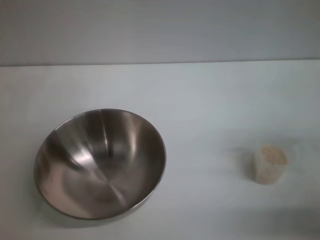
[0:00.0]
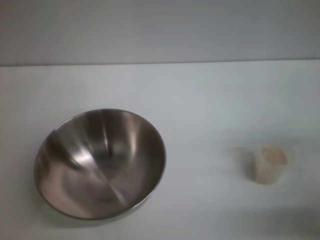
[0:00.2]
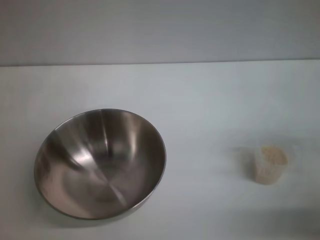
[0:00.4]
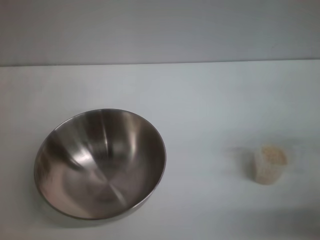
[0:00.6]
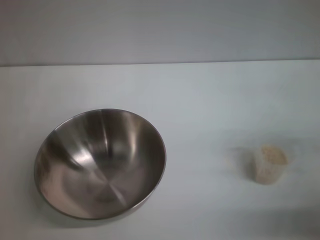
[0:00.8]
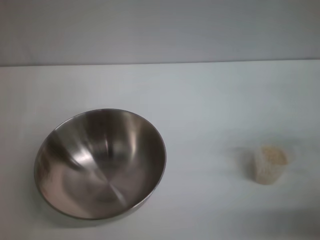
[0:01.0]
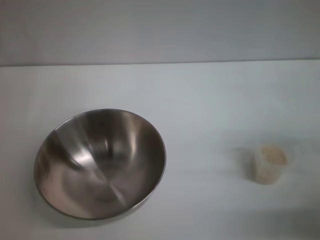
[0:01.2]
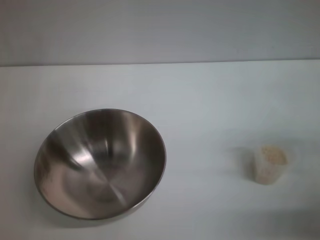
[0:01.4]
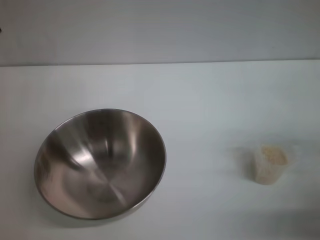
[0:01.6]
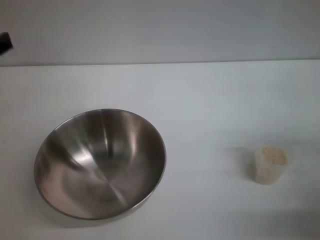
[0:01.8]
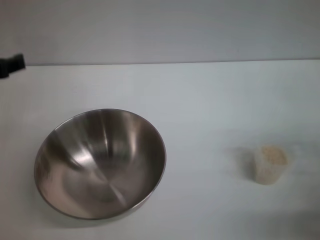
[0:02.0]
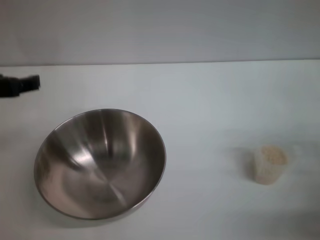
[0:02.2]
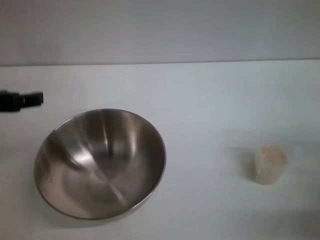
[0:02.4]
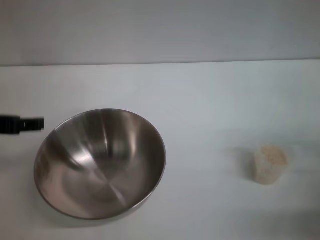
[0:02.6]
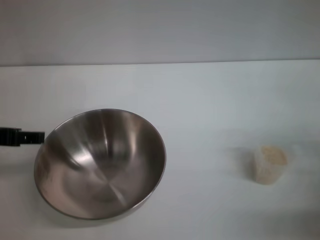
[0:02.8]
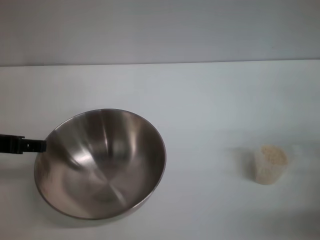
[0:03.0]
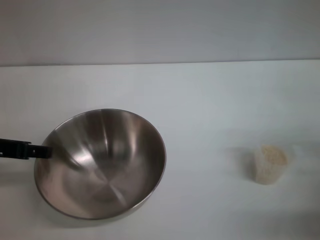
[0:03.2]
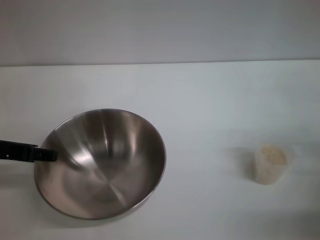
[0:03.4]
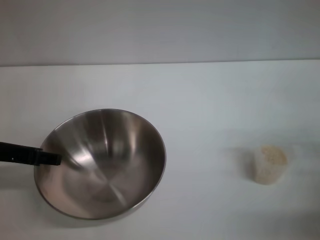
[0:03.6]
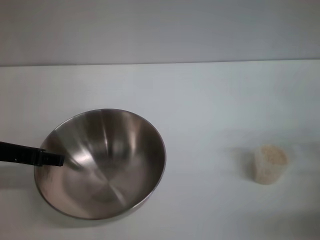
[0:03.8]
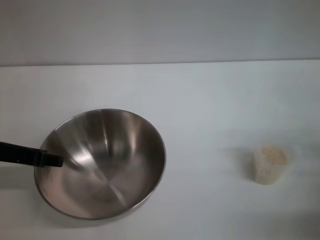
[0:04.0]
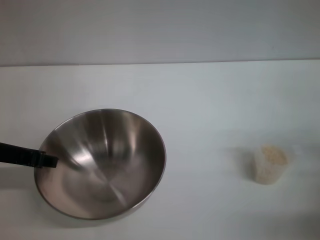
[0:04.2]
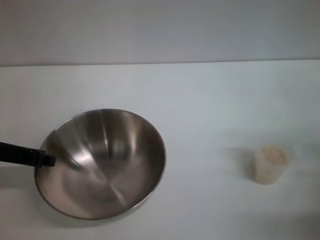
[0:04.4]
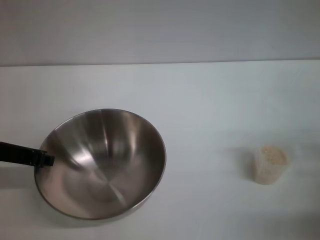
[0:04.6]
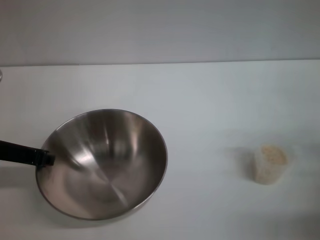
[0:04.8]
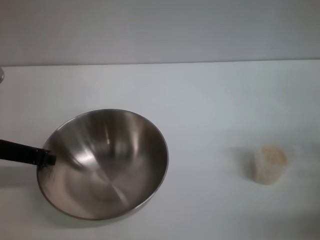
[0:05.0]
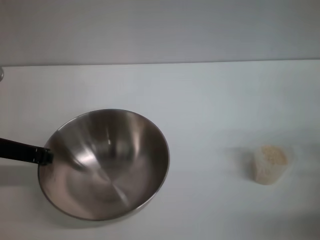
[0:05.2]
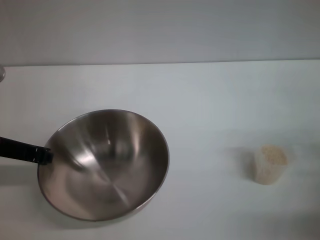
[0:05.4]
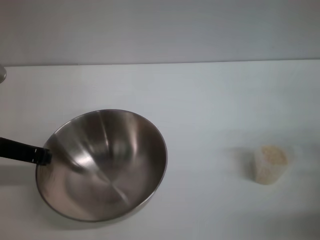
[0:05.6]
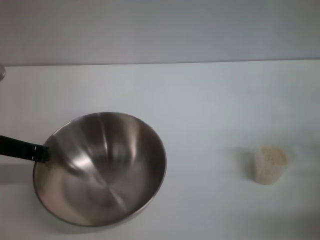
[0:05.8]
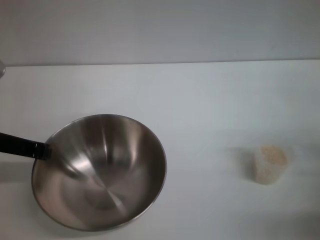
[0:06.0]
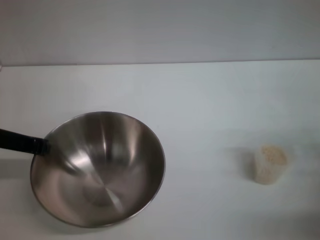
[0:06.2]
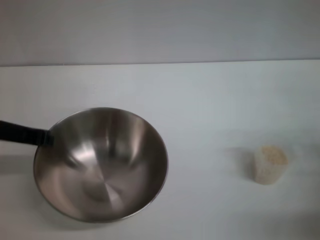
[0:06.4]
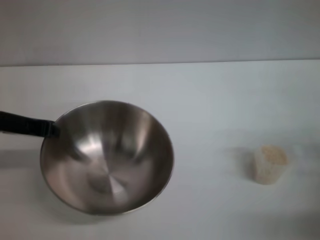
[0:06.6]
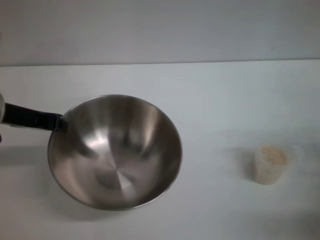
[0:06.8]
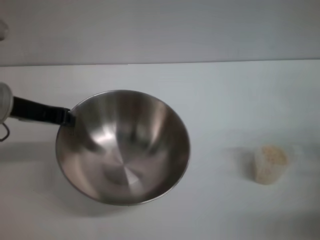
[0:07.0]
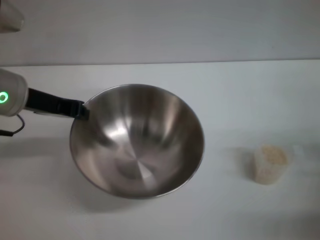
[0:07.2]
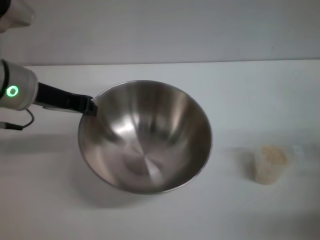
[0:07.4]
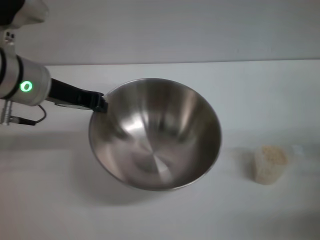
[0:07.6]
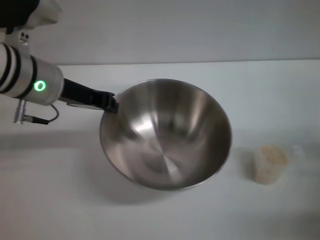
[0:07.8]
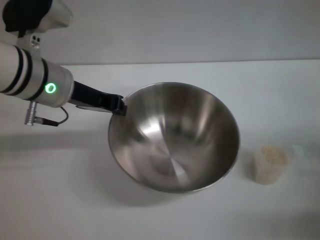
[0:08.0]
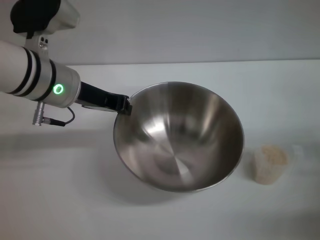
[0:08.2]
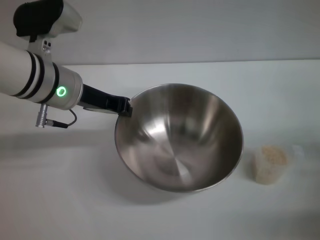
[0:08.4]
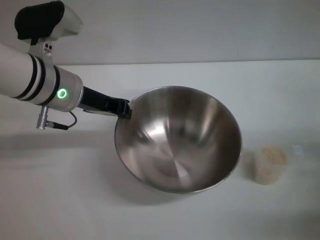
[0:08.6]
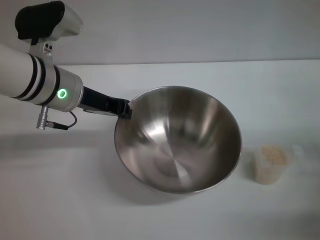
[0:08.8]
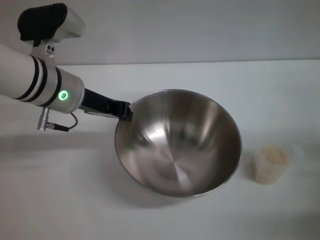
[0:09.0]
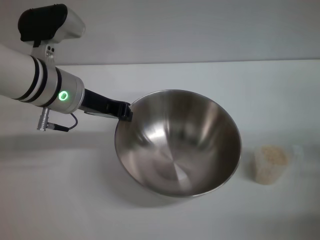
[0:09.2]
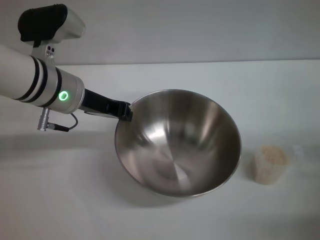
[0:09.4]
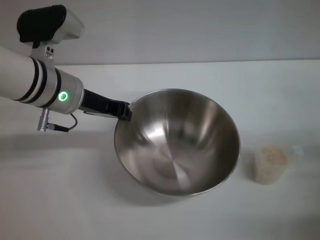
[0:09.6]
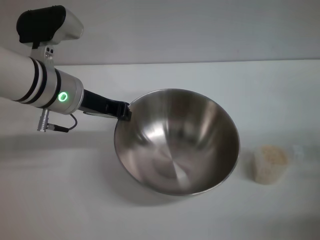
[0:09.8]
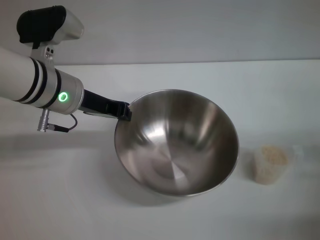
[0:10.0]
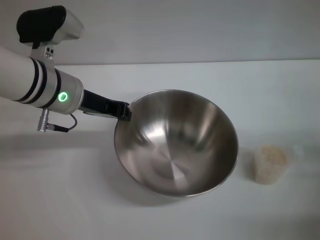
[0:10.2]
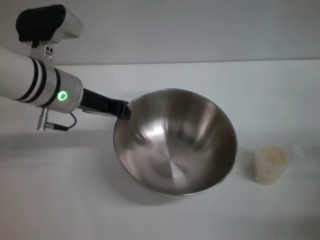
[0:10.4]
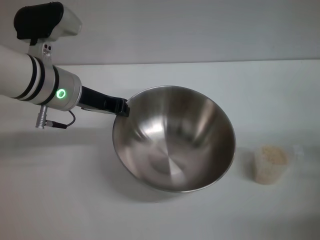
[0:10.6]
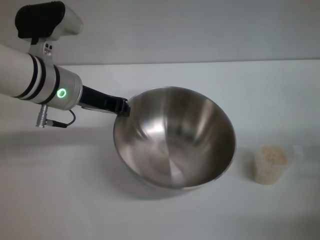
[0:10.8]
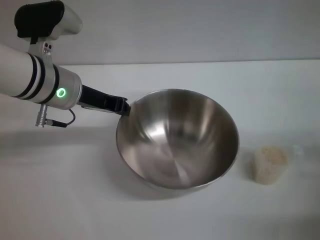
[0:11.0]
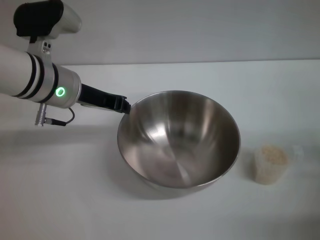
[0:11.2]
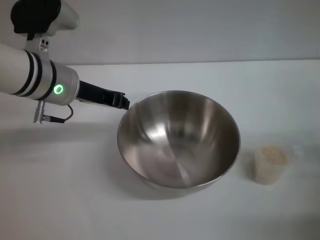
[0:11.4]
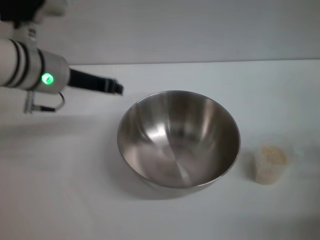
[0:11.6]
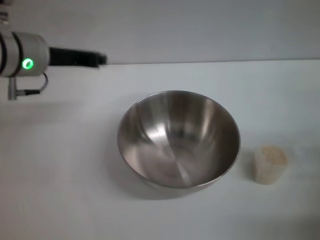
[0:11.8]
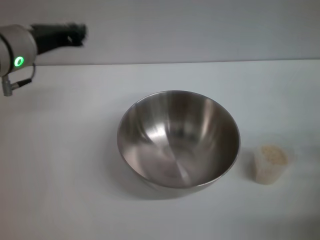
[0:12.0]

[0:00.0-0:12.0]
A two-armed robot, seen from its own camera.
Task of the whole recording: Place the bowl in the middle of the table with one hand and pour the rice from the grain cup into it with the other hand.
Step, 0:00.0 to 0:08.0: Pick up the bowl with the left gripper.
Step, 0:08.2 to 0:11.4: Place the bowl in the center of view with the left gripper.
0:03.0 to 0:04.4: The grippers make only small movements.
0:04.4 to 0:06.0: The left gripper closes its fingers.
0:06.0 to 0:07.6: The left gripper heads forward and to the right, covering some 10 cm.
0:09.0 to 0:10.4: Neither gripper changes place.
0:10.4 to 0:12.0: The left gripper moves roughly 5 cm.

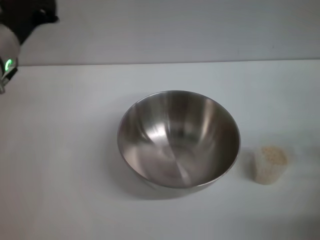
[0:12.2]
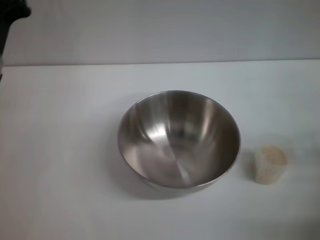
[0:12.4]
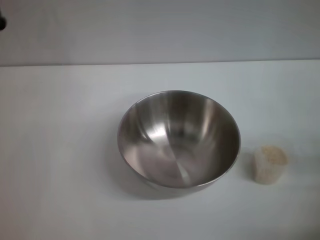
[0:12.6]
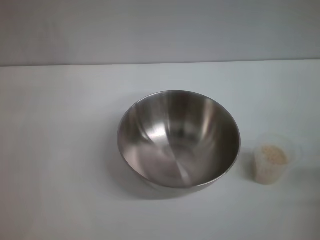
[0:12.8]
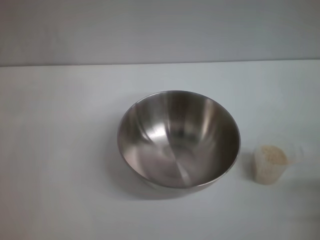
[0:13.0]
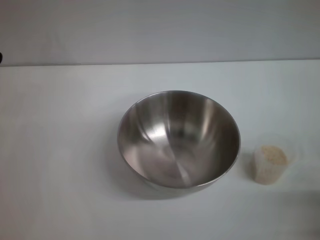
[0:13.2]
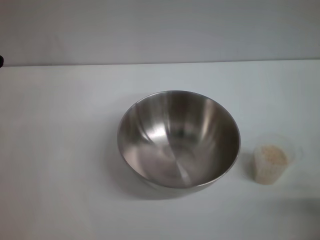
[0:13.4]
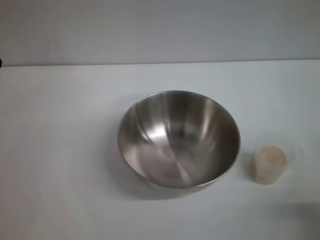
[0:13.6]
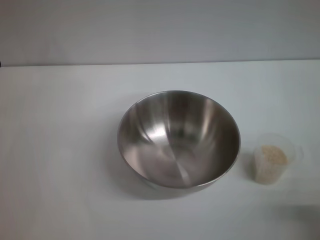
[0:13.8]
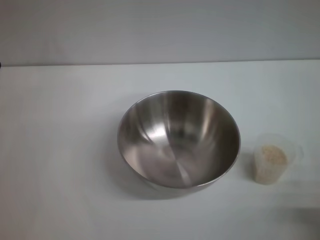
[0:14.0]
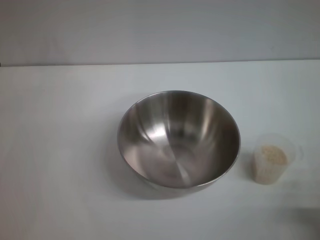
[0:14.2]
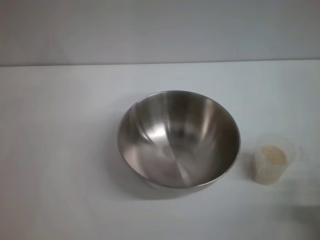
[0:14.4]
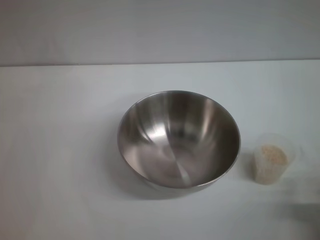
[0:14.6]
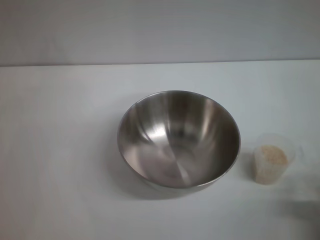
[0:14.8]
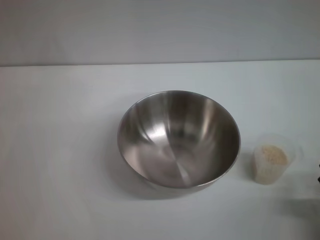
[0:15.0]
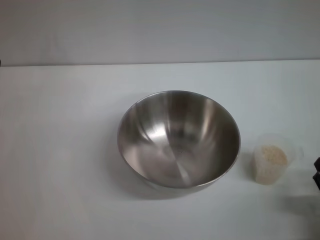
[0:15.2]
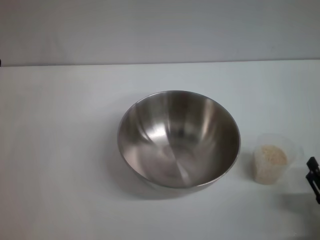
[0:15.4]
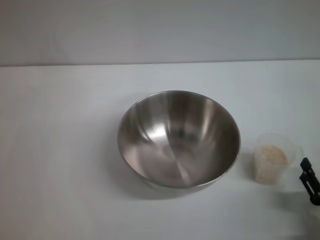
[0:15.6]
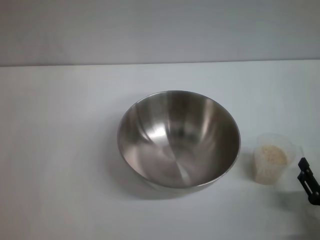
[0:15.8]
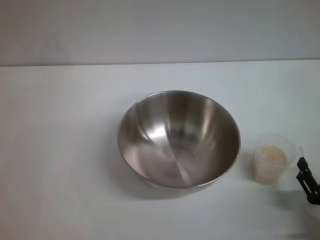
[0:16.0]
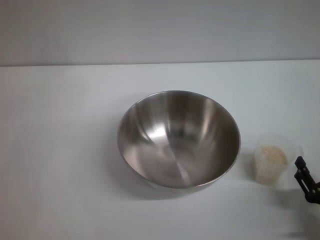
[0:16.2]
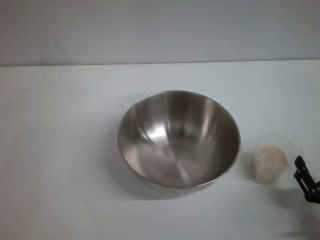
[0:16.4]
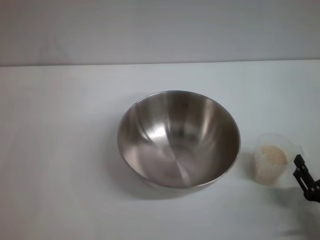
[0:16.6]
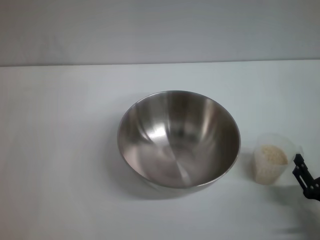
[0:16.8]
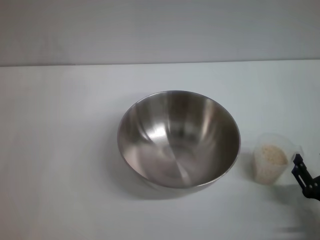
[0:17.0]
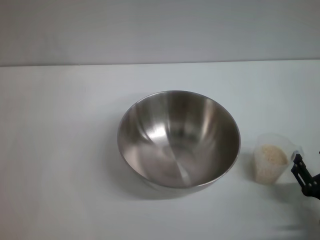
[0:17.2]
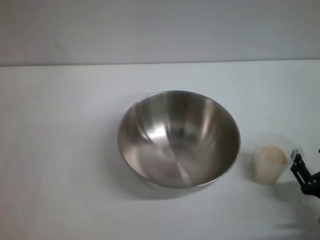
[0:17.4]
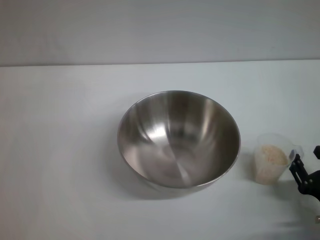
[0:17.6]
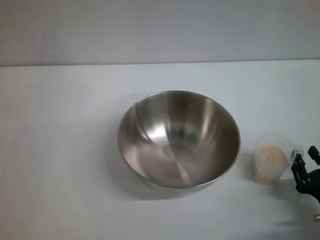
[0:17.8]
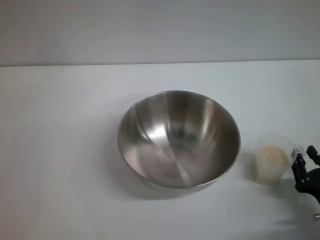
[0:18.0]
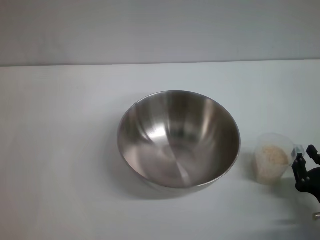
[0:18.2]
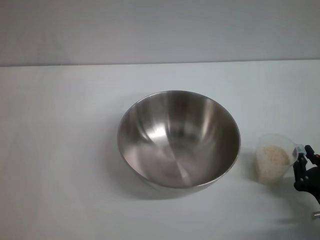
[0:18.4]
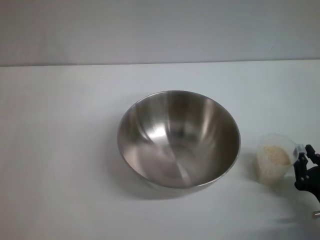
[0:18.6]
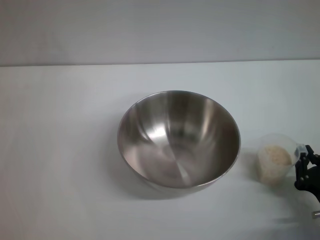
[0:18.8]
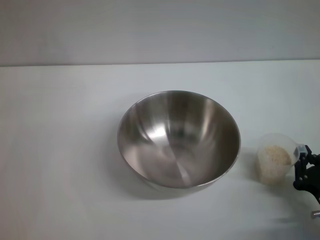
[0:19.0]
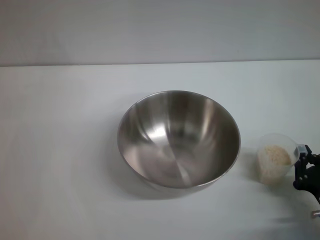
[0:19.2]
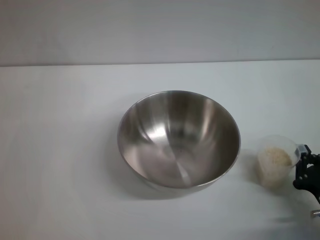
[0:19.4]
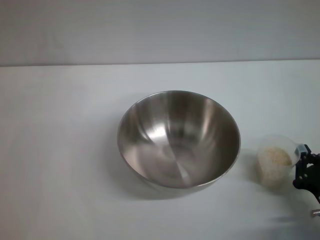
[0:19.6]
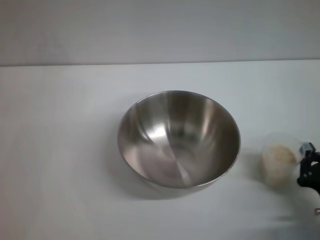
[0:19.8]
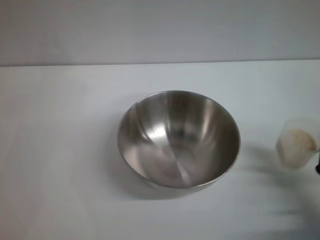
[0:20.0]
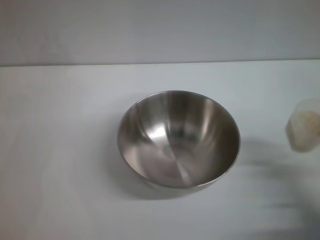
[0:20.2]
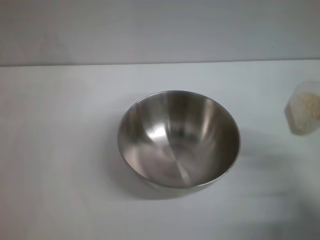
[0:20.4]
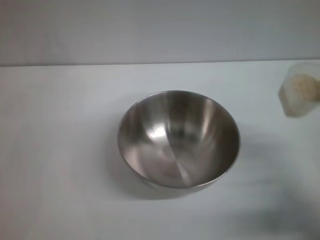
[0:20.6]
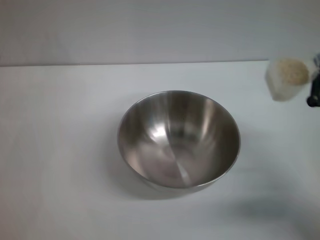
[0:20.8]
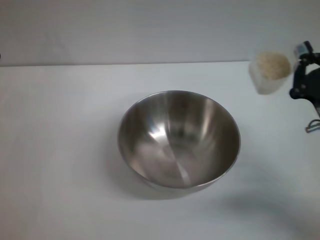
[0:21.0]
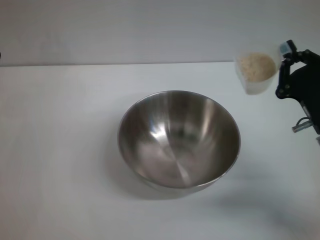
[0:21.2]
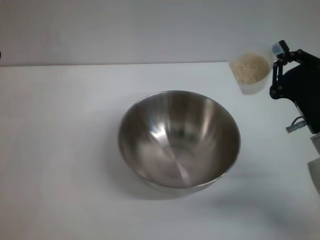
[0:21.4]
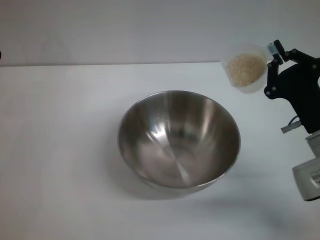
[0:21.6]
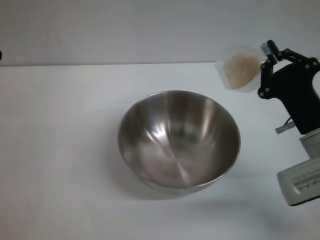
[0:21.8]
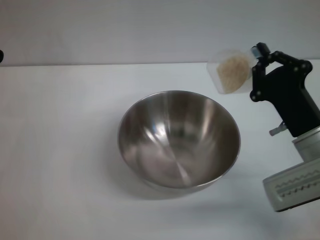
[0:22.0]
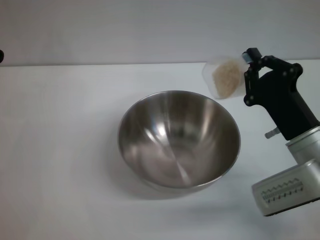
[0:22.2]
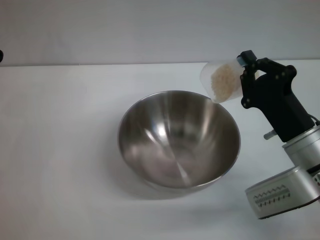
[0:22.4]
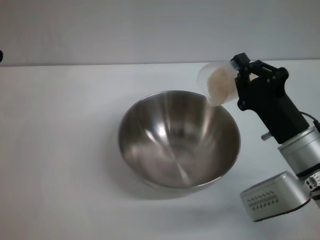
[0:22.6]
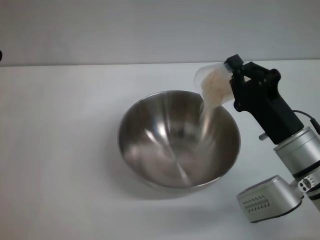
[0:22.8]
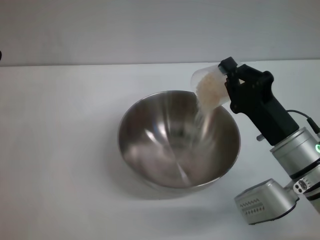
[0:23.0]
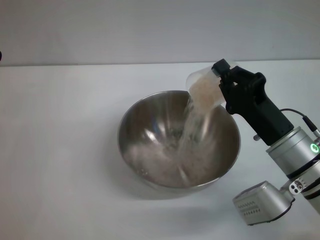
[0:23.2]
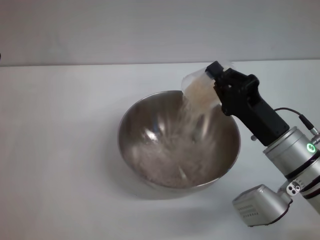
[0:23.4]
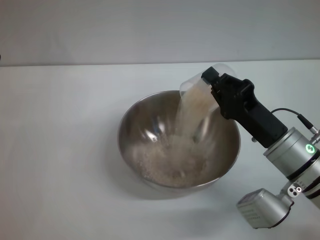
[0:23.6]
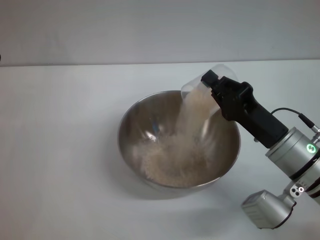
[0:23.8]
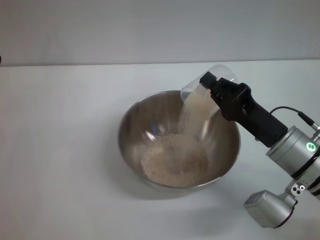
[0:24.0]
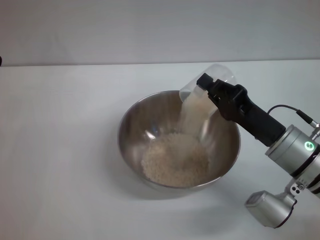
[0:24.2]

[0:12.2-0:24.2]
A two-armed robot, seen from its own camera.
Task of the whole recording: Place the bowl in the middle of the table with one hand and pour the rice from the grain cup into it with the other hand.
Step, 0:12.2 to 0:20.2: Pick up the cup with rice in it with the right gripper.
0:12.2 to 0:13.8: The left gripper shifts roughly 15 cm downward, backward and to the left.
0:15.2 to 0:16.6: The grippers move only a little.
0:16.6 to 0:18.2: The right gripper closes its fingers.
0:18.2 to 0:19.8: The right gripper closes its fingers.
0:19.8 to 0:21.2: The right gripper moves forward and upward, about 15 cm.
